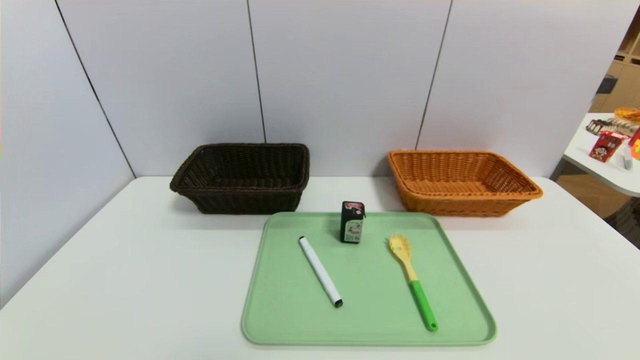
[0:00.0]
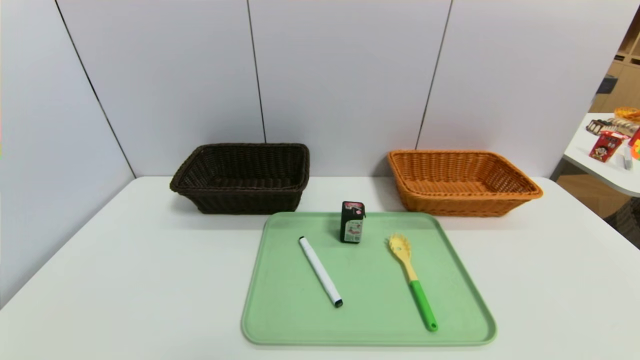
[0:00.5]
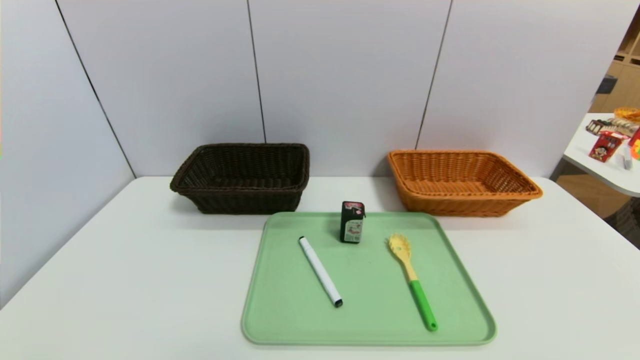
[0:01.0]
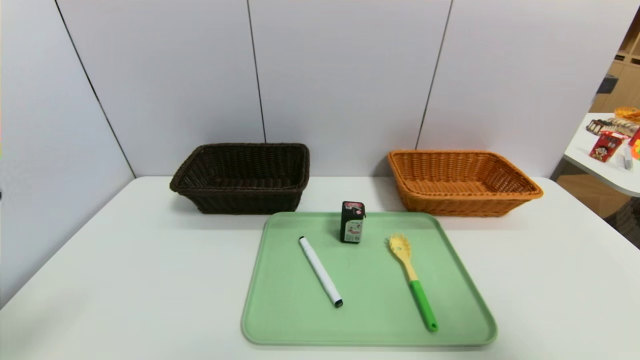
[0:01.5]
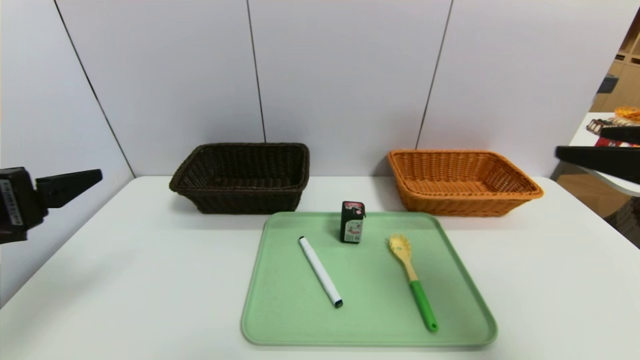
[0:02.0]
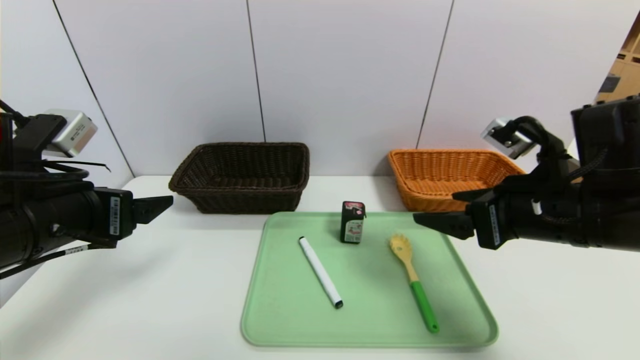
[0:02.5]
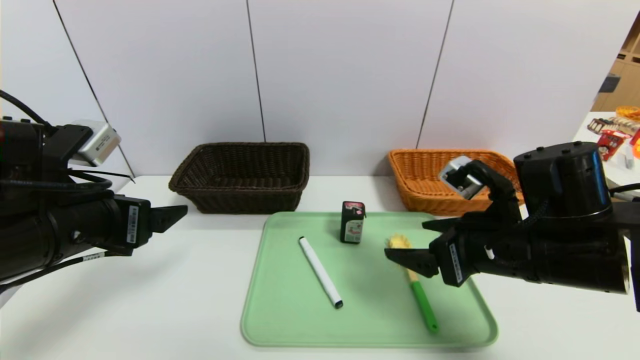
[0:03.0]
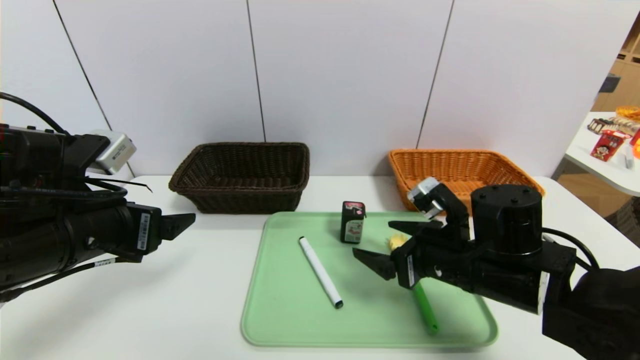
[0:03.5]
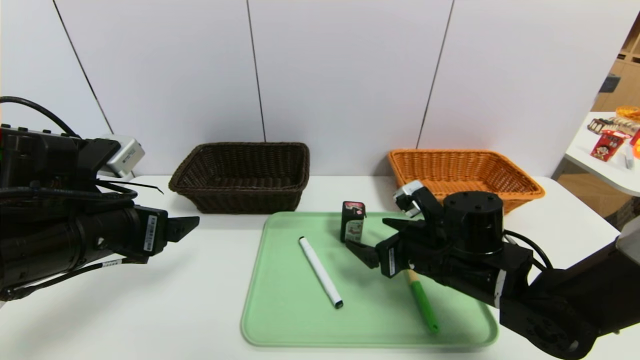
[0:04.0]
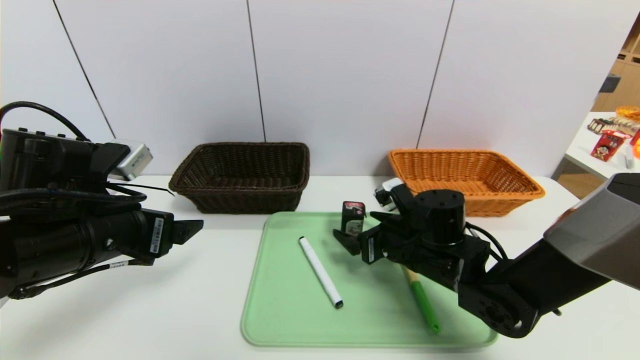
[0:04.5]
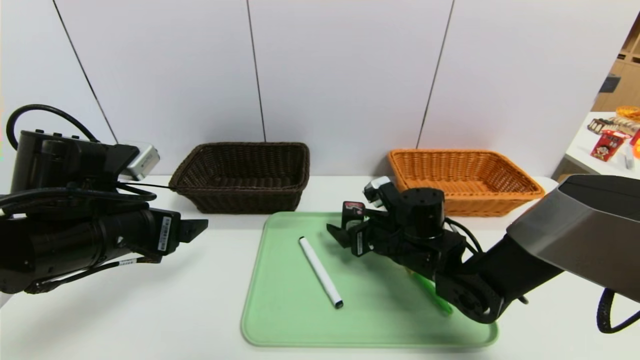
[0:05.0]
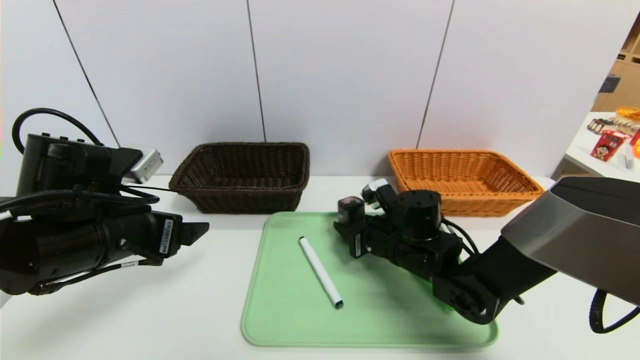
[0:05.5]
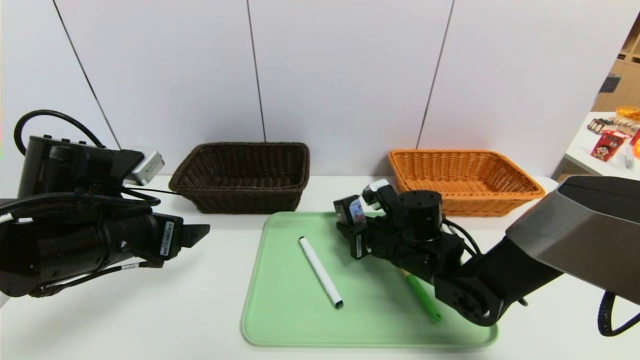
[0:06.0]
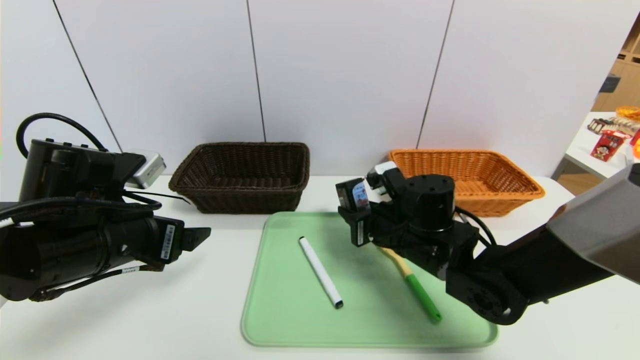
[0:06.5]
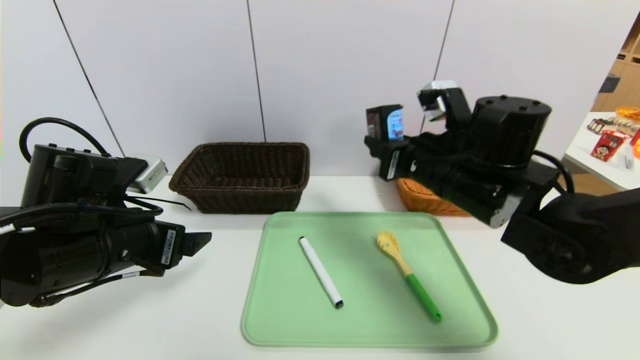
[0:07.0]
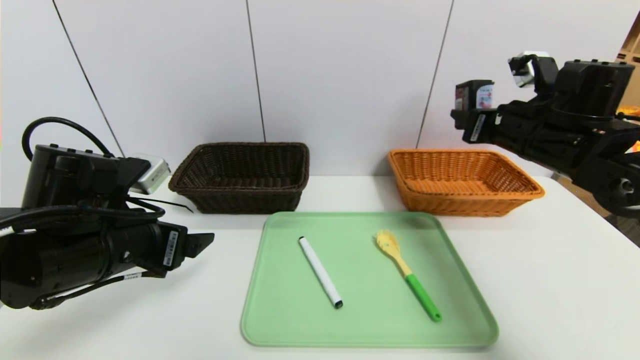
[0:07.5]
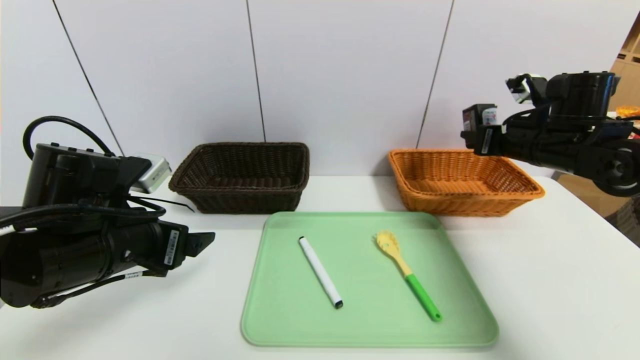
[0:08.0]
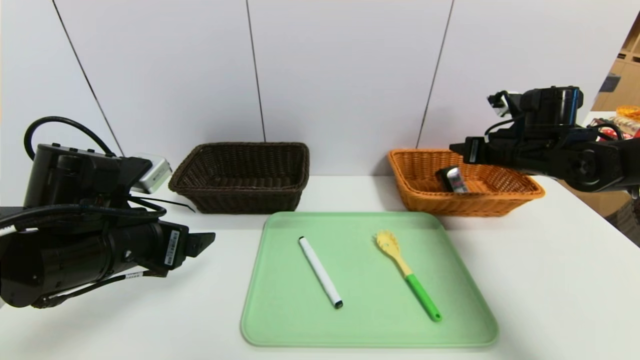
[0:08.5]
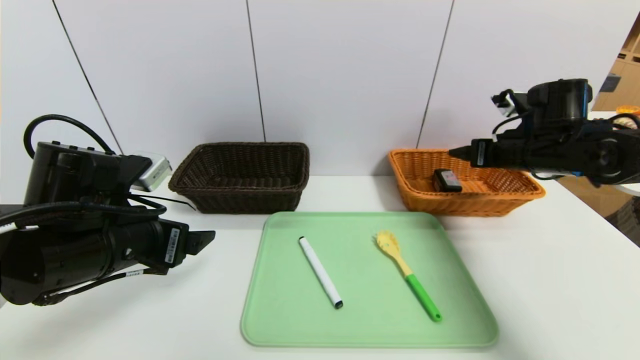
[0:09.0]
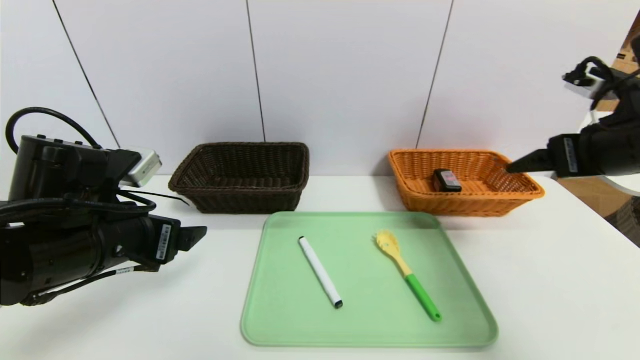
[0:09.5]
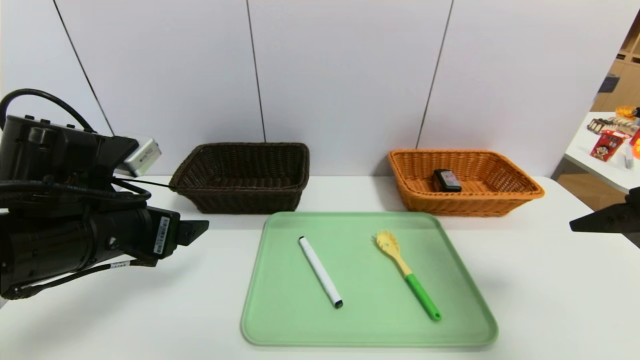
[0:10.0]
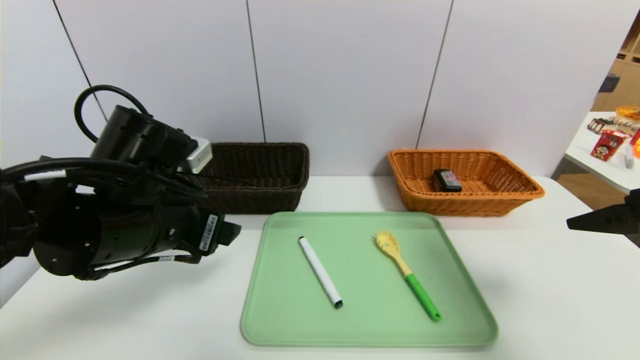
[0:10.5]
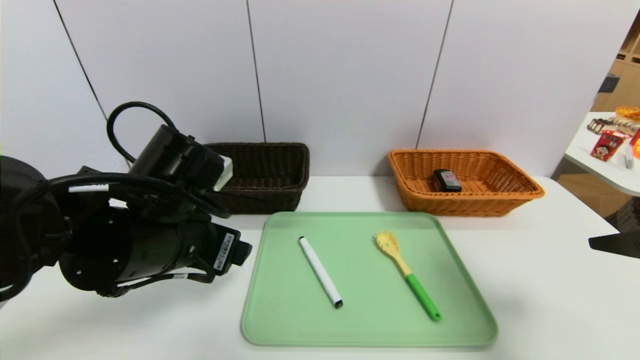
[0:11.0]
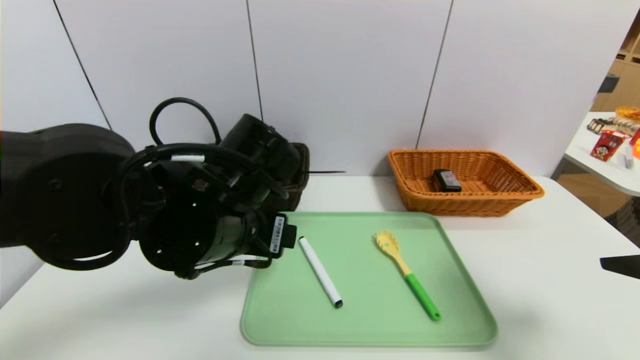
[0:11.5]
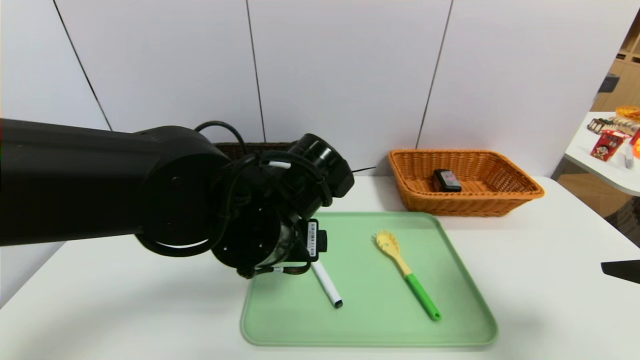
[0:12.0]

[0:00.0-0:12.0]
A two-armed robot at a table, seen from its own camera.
Task of the whole recording: place the food in the right basket with the right gripper, and place the non food items in the left basket with the left gripper.
Step, 0:00.0 to 0:09.0: Grasp the square chewing gum and put it in the right basket.
0:00.0 to 0:02.0: Both grippers move upward and forward, some 25 cm.
0:02.0 to 0:04.0: The left gripper is displaced forward, downward and to the right by roughly 10 cm, while the right gripper is displaced downward, to the left and forward by roughly 30 cm.
0:04.0 to 0:06.0: The right gripper heads forward, covering some 5 cm, and closes.
0:06.0 to 0:08.0: The right gripper travels to the right and upward by about 25 cm.
0:08.0 to 0:10.0: The right gripper shifts some 20 cm backward, and opens its fingers.
0:10.0 to 0:12.0: The left gripper shifts about 15 cm to the right. The right gripper heads backward, covering some 5 cm.

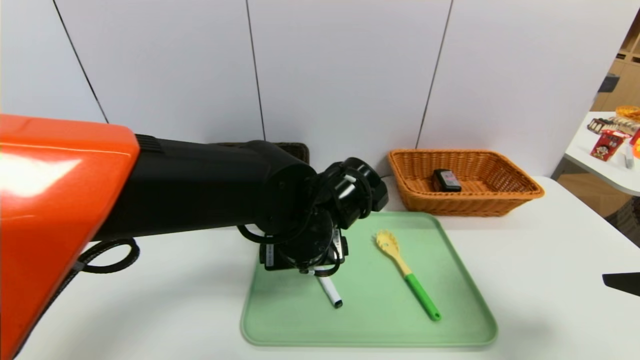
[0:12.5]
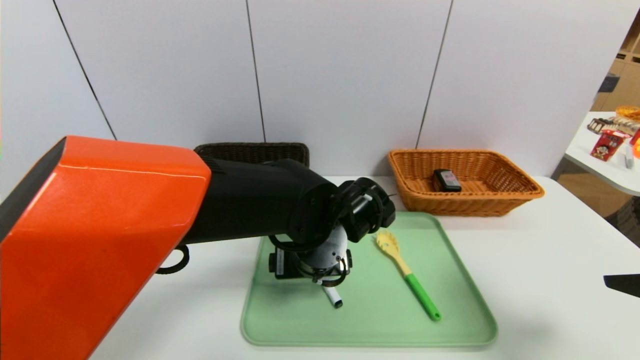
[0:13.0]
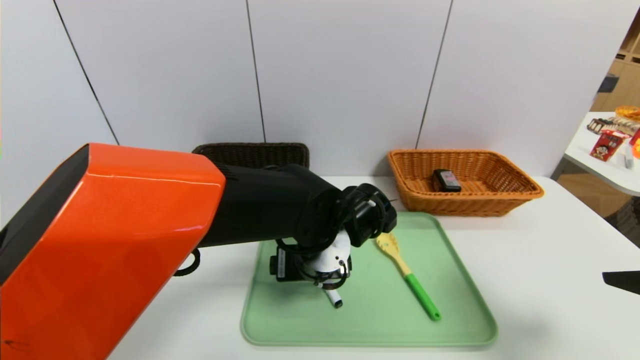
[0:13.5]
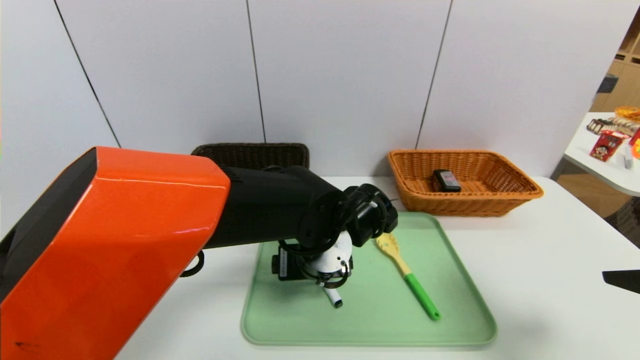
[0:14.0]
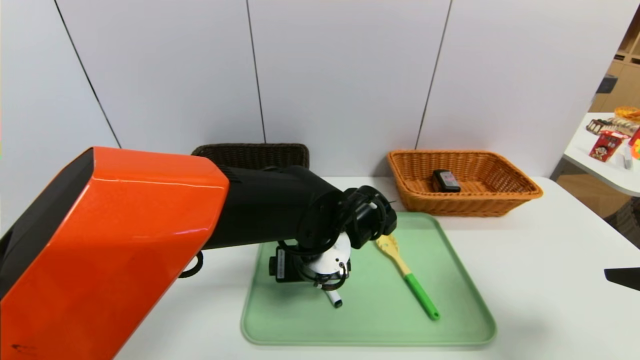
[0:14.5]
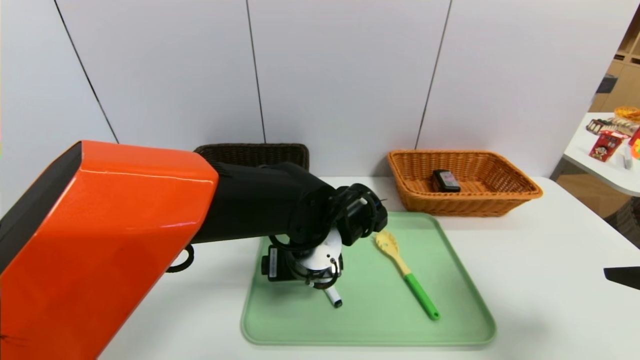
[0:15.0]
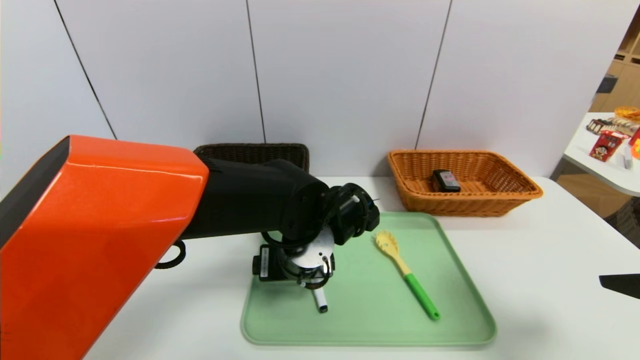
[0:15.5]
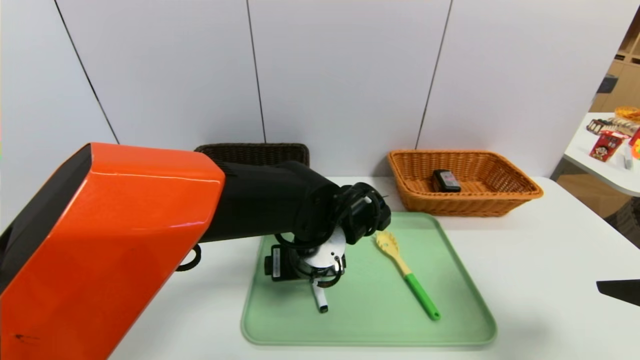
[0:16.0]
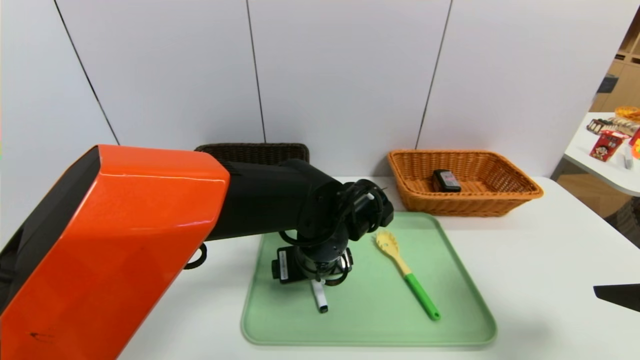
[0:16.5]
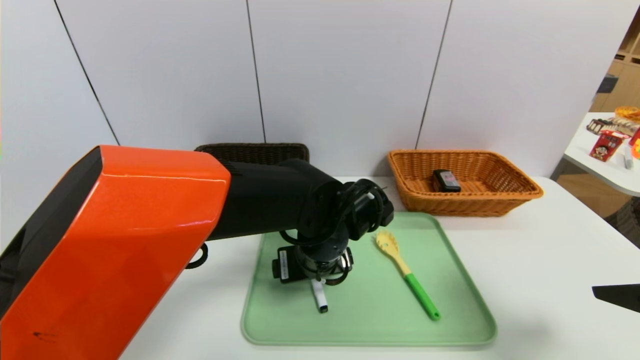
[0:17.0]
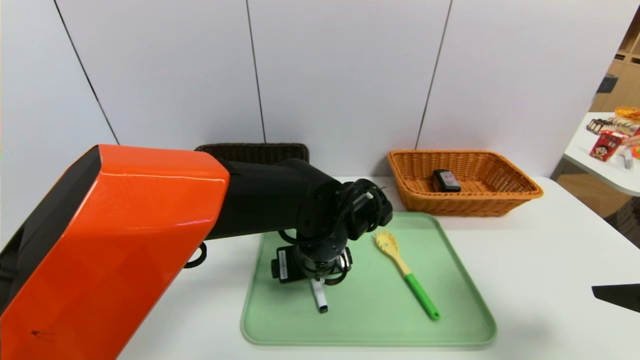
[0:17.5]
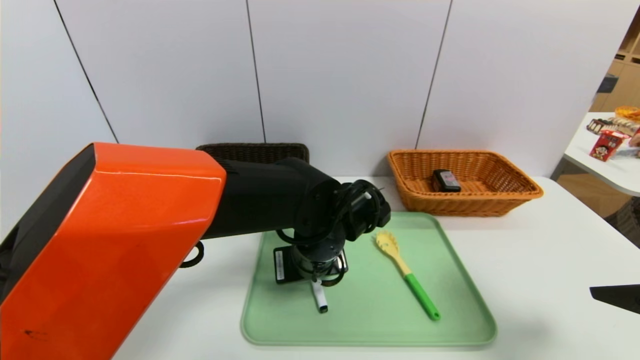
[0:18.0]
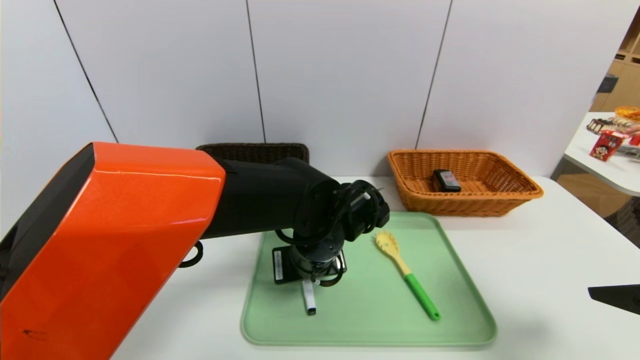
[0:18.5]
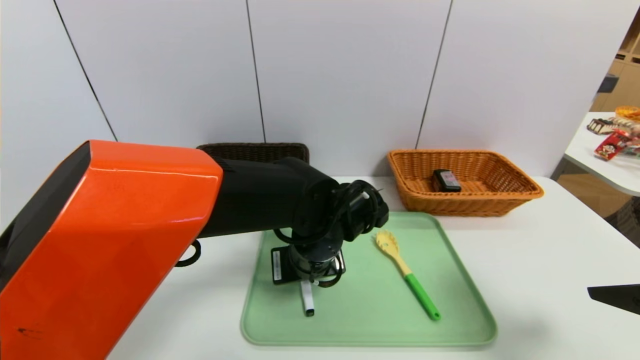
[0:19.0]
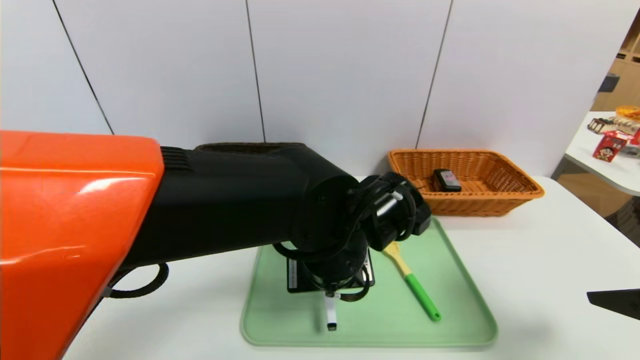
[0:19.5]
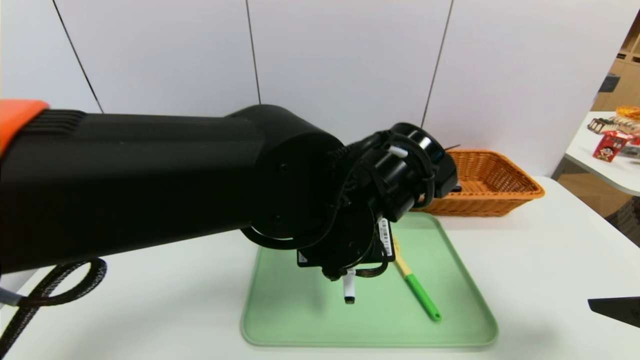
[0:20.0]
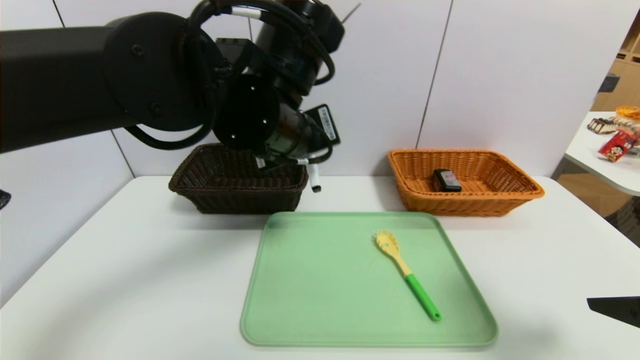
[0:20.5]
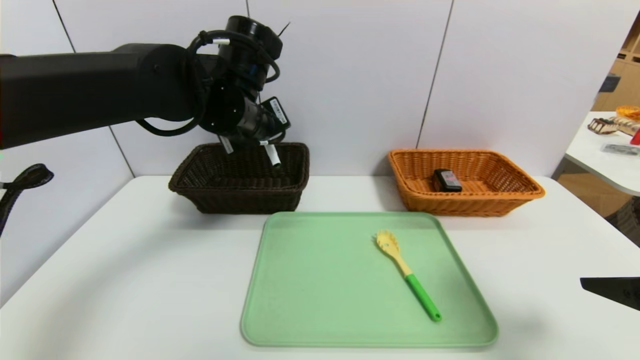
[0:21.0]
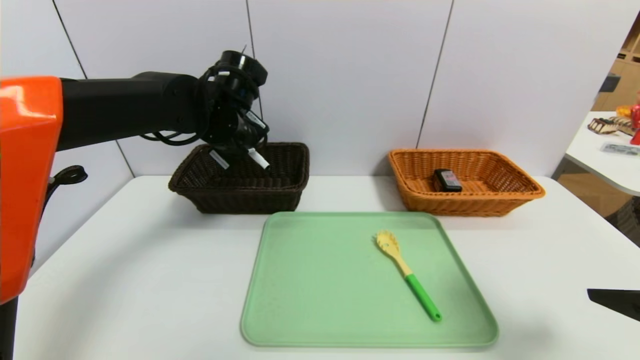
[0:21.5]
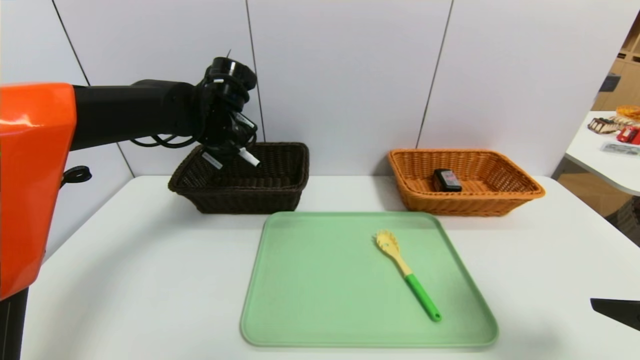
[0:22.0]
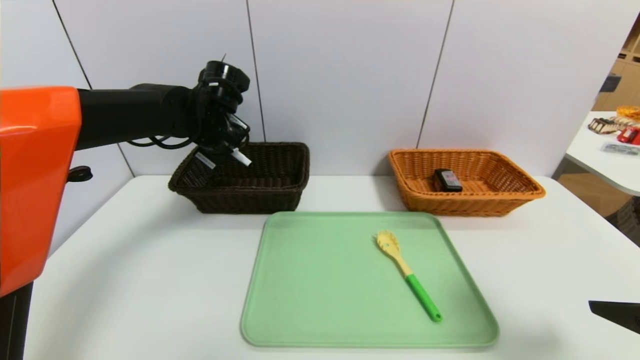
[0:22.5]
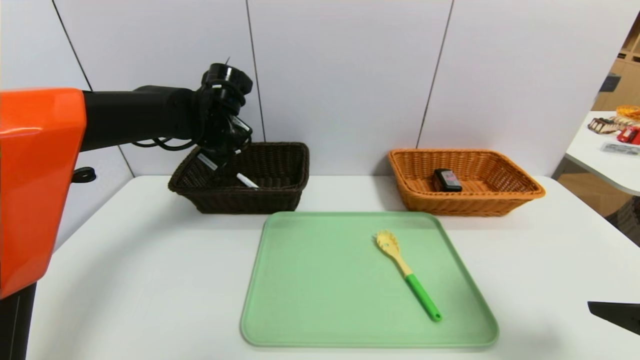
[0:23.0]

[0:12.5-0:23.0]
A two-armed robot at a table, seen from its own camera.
Task of the whole recording: place the food in the right basket with the right gripper, and place the non food items in the left basket with the left gripper.
0:12.5 to 0:14.5: The left gripper moves downward, some 5 cm.
0:14.5 to 0:16.5: The grippers stay close to where they were, moving slightly.
0:16.5 to 0:19.0: The left gripper closes.
0:19.0 to 0:21.0: The left gripper travels upward, to the left and forward by roughly 20 cm.
0:21.0 to 0:23.0: The left gripper heads forward and to the left, covering about 10 cm, and opens.
